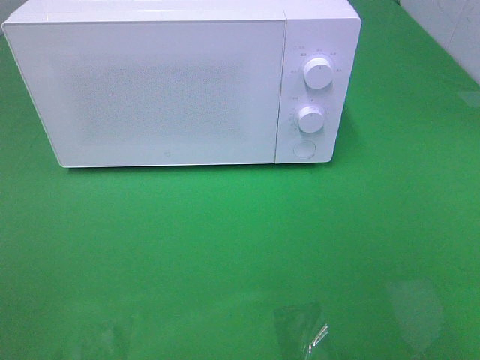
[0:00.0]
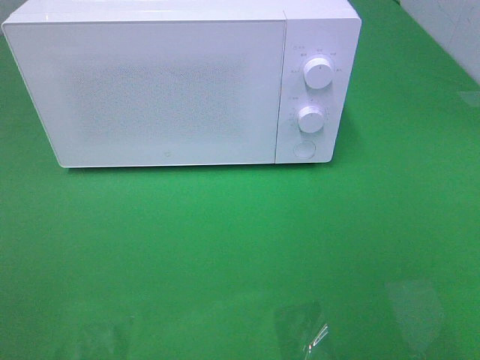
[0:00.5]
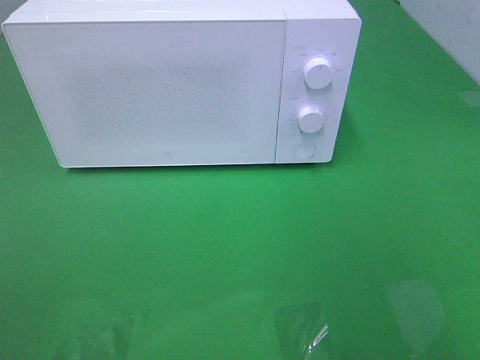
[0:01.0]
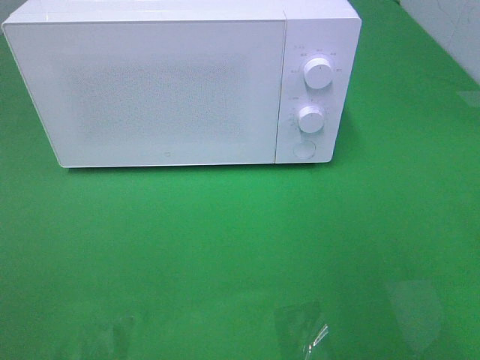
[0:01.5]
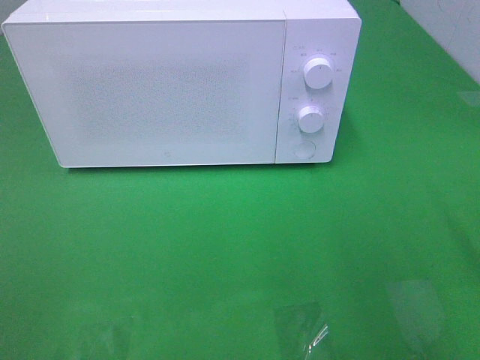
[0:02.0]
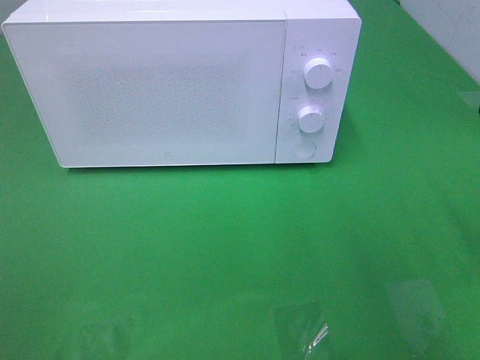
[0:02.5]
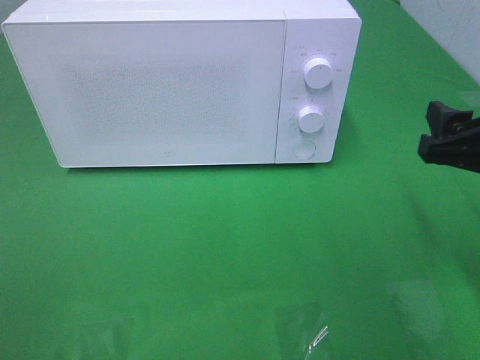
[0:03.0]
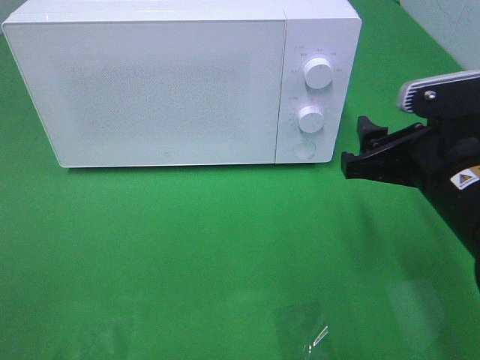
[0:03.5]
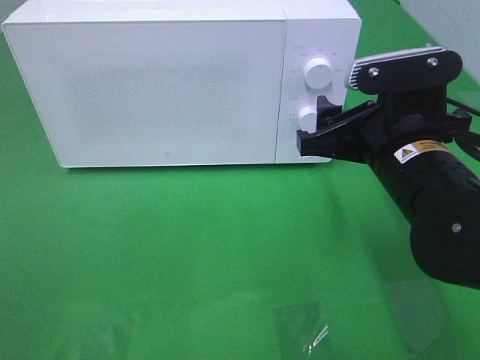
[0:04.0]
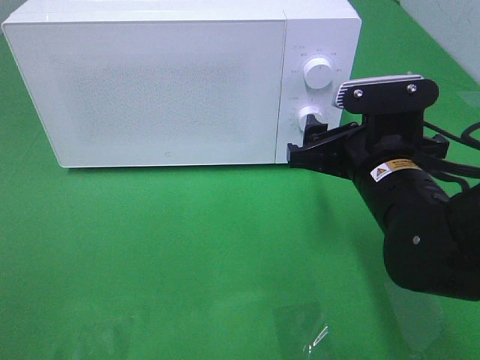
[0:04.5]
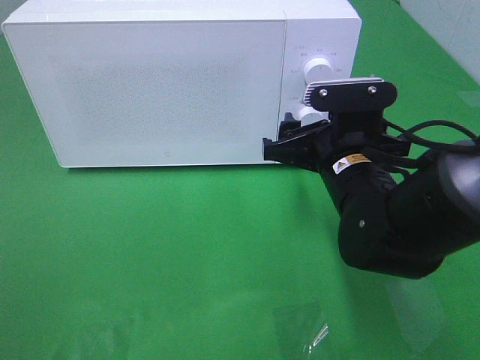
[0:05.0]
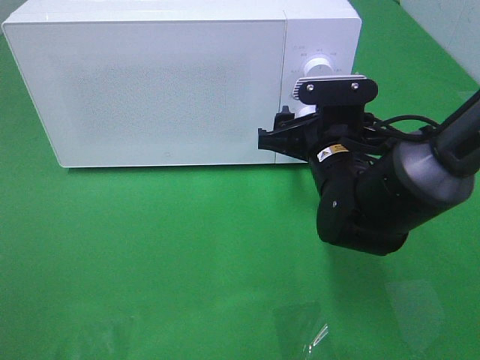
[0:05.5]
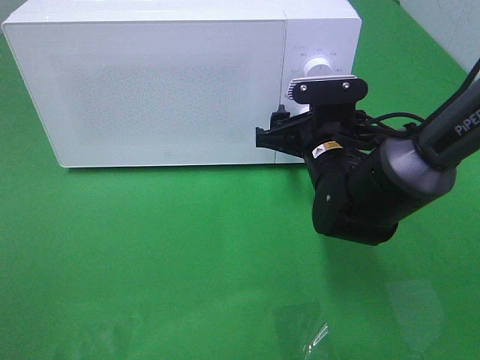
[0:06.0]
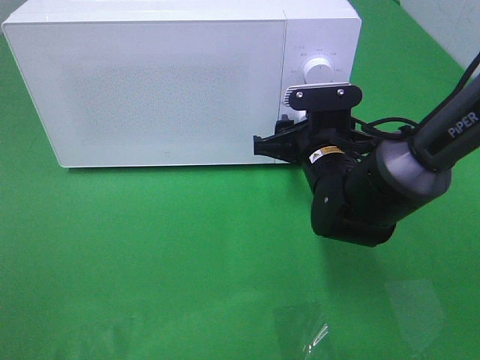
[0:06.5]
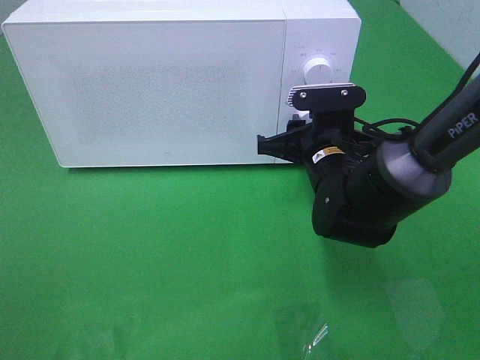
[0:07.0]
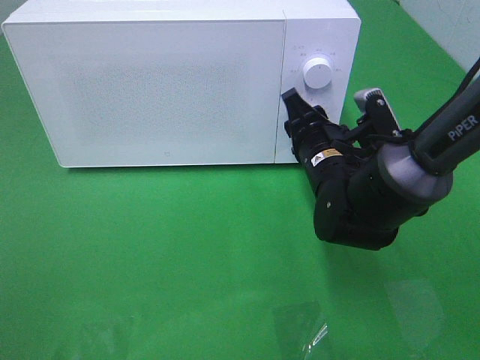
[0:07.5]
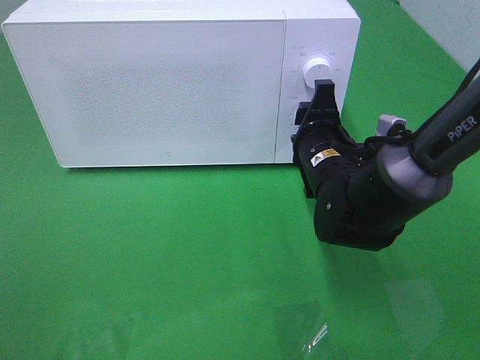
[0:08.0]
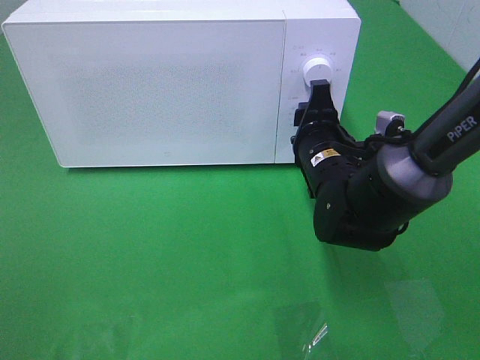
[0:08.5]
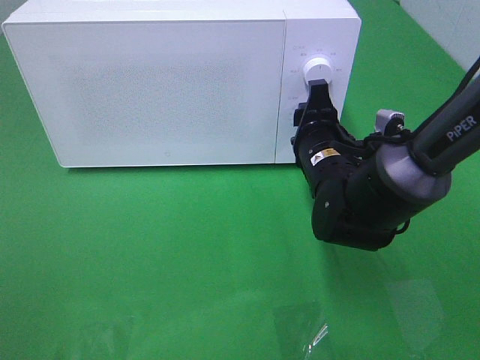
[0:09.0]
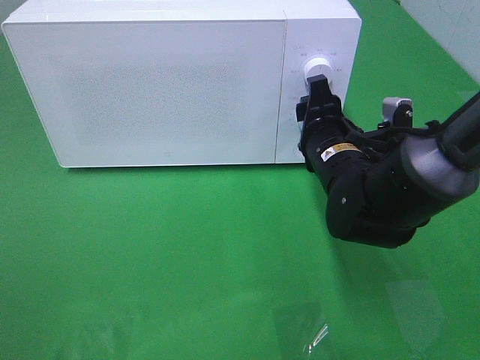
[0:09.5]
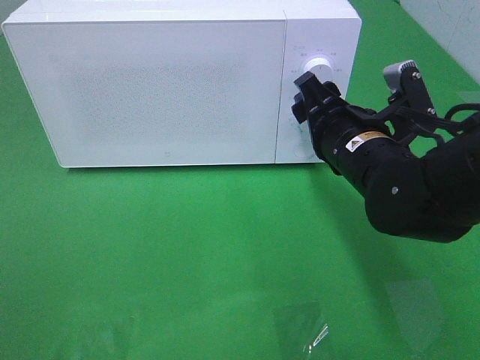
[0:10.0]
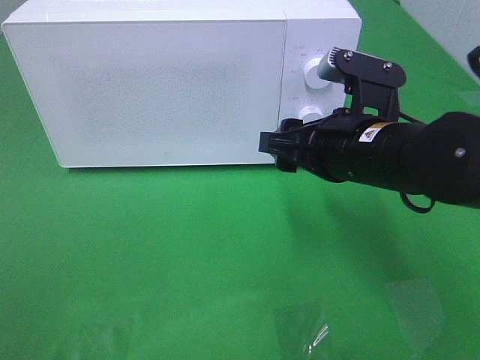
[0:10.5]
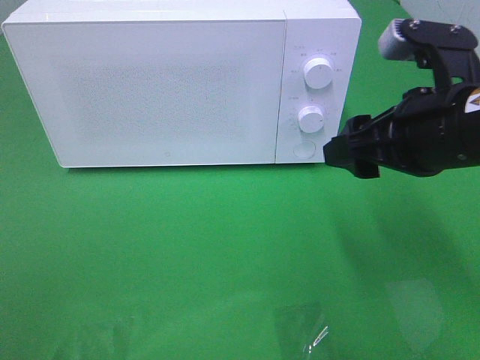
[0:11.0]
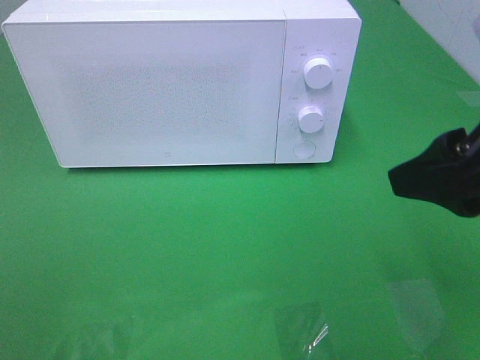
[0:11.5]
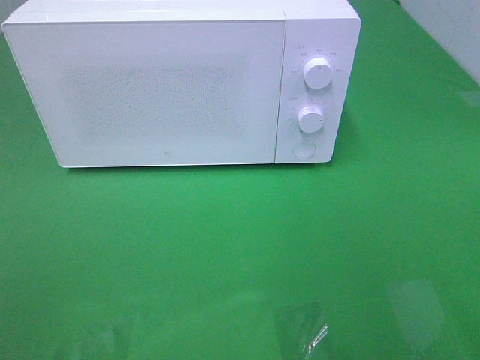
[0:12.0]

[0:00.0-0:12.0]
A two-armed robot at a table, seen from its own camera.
Task of the whole recording: Heat the burger.
Step, 0:00.0 to 0:09.0: Right hand: twist timer button.
0:02.0 to 0:04.0: The right gripper travels to the left, forward and downward by roughly 15 cm.
0:04.0 to 0:06.0: The right gripper heads forward and downward, covering some 10 cm.
0:06.0 to 0:08.0: The right gripper closes its fingers.
0:08.0 to 0:10.0: The right gripper ends up about 5 cm from where it was.
0:10.0 to 0:12.0: The right gripper shifts about 30 cm backward, upward and to the right.

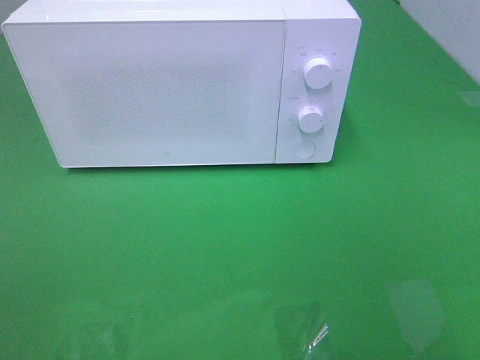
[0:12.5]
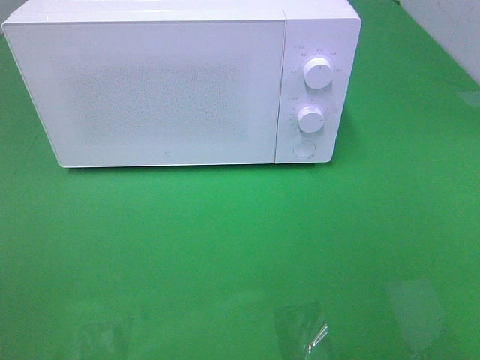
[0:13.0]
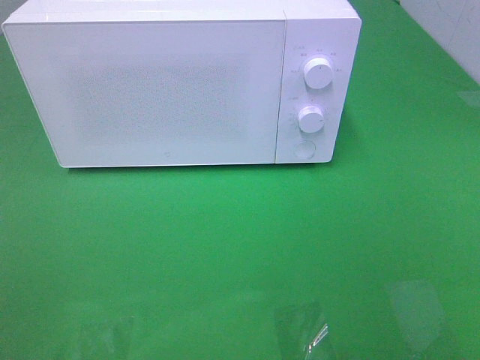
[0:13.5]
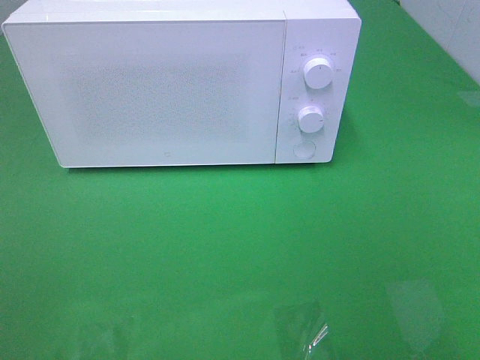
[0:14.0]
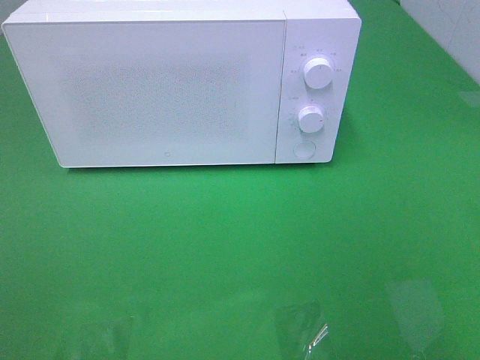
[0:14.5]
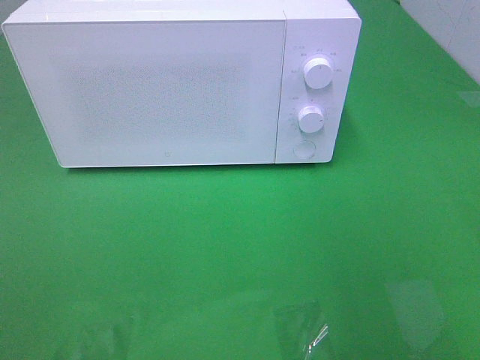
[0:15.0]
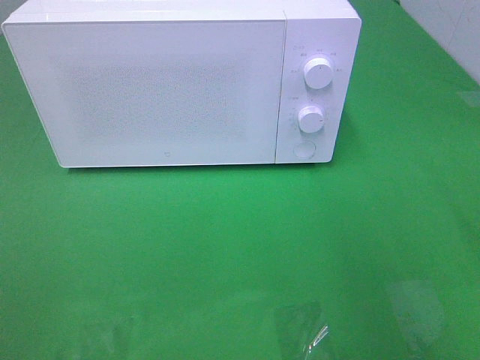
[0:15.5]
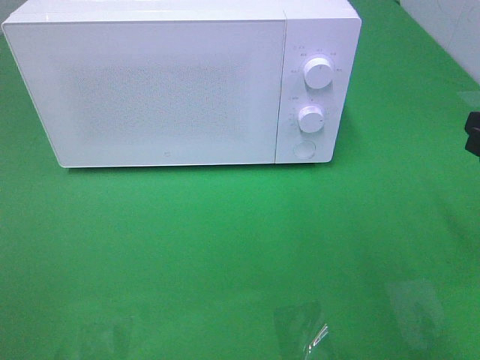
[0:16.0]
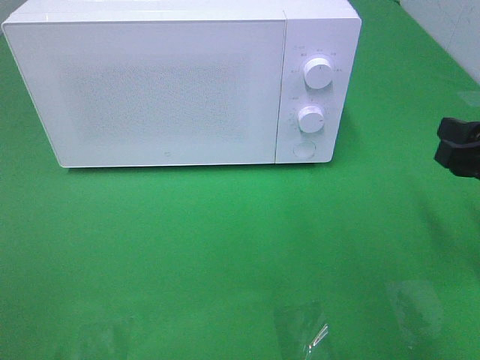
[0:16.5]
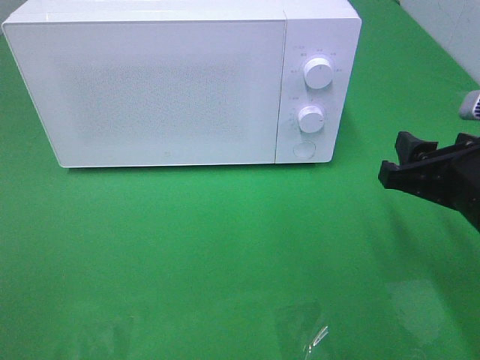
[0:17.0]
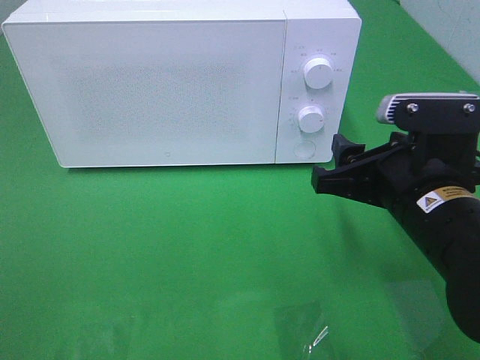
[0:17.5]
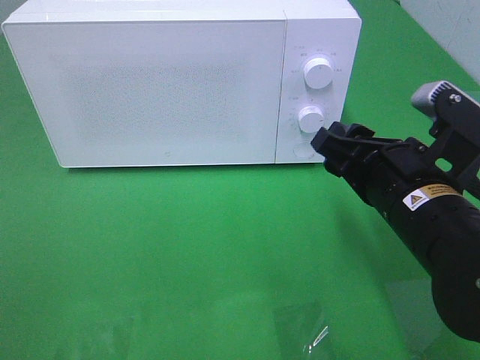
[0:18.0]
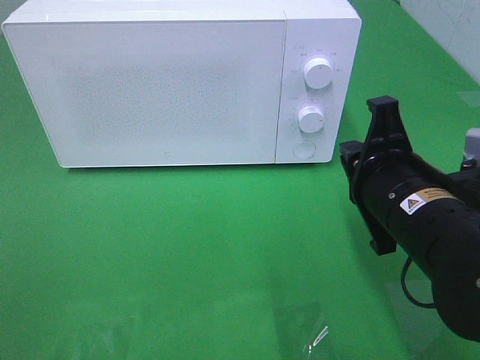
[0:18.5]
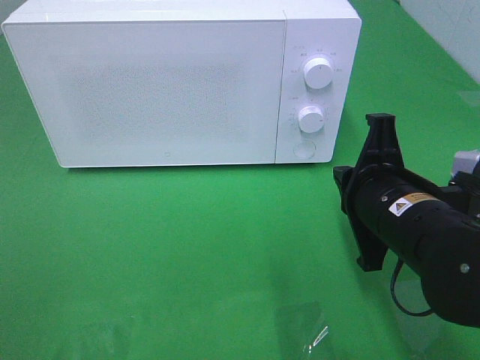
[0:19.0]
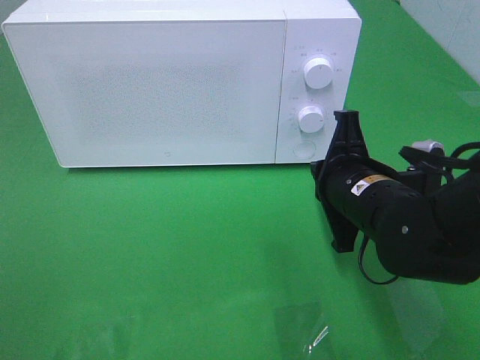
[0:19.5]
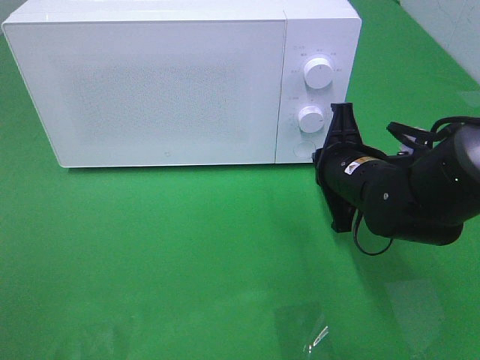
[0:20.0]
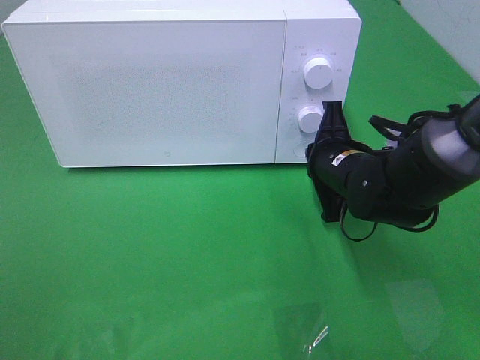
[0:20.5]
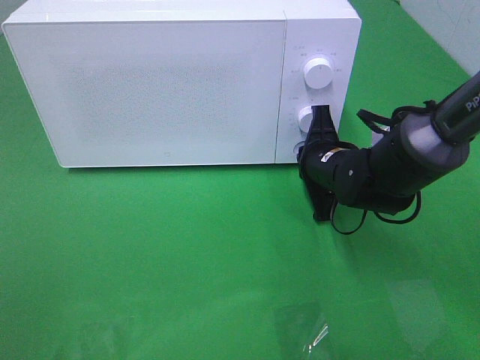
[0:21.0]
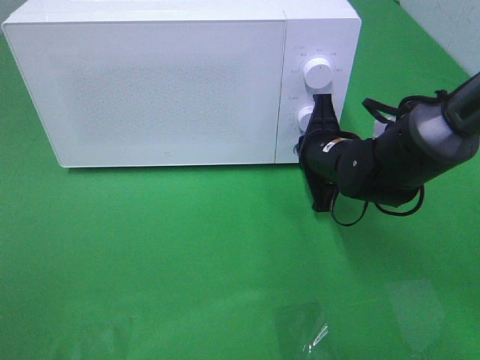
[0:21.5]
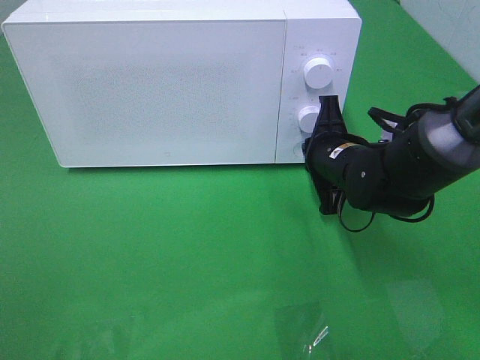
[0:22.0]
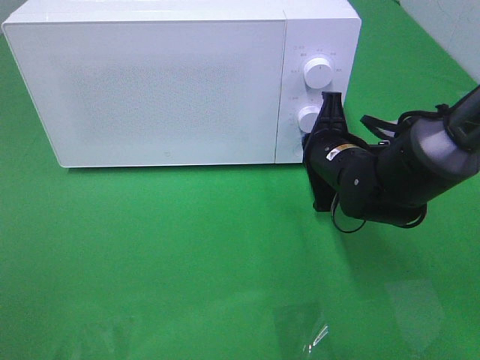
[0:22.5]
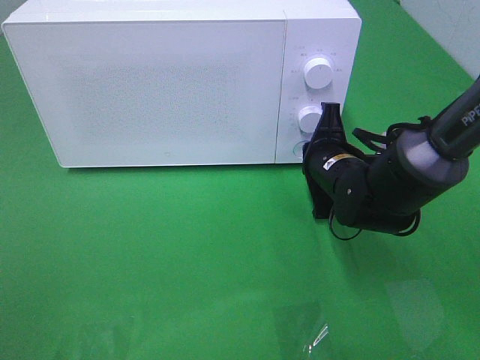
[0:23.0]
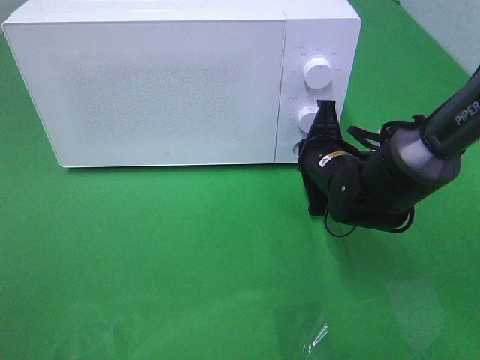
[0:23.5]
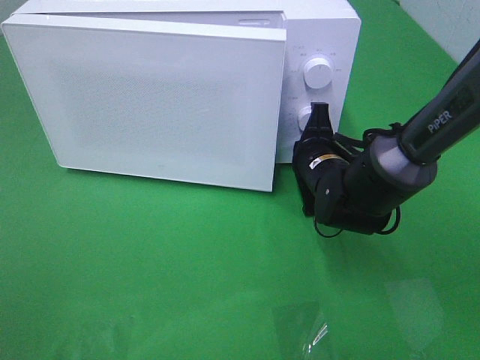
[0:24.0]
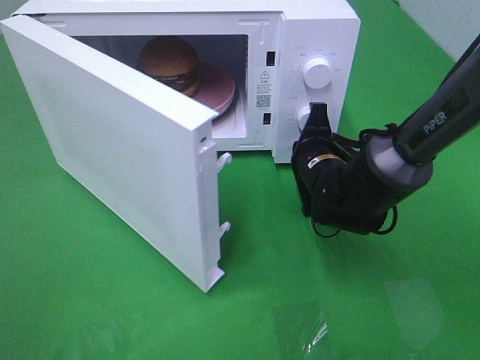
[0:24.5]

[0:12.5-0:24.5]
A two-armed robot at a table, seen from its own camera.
Task of the whole recording: Heat the burger.
0:14.5 to 0:16.5: The right gripper travels forward and downward by some 20 cm.
0:16.5 to 0:18.5: The right gripper travels to the left by approximately 10 cm, and closes its fingers.
0:18.5 to 0:20.5: The right gripper is displaced forward and downward by approximately 15 cm.
0:20.5 to 0:22.5: The grippers stay close to where they were, moving slightly.

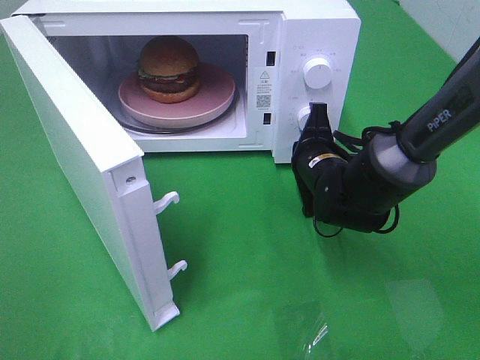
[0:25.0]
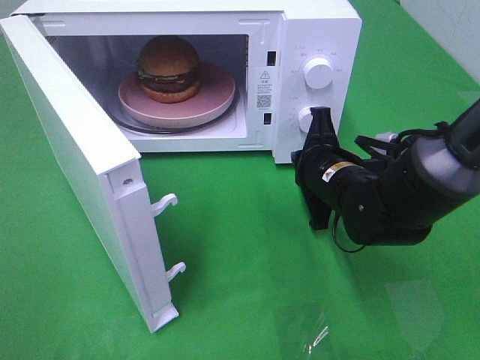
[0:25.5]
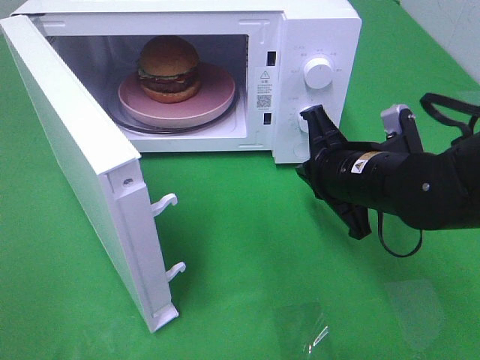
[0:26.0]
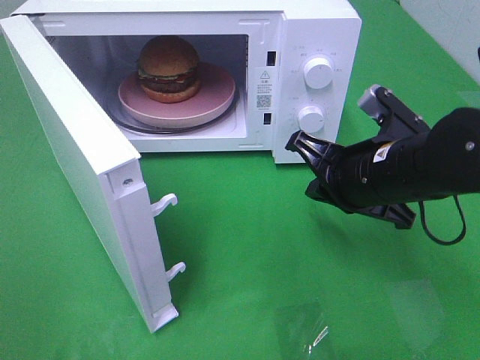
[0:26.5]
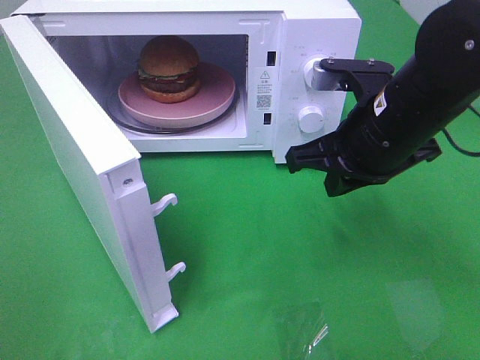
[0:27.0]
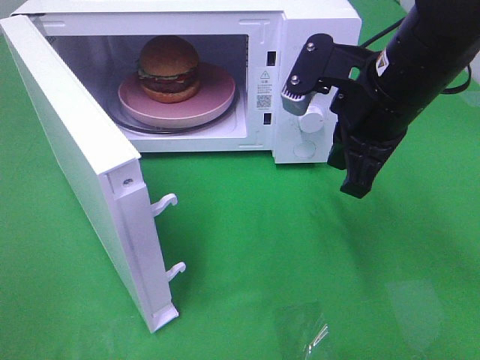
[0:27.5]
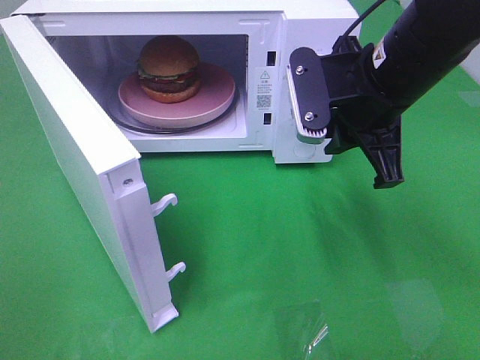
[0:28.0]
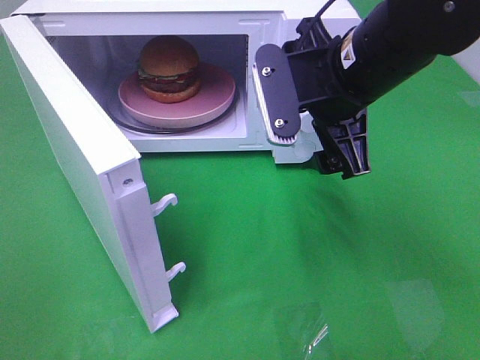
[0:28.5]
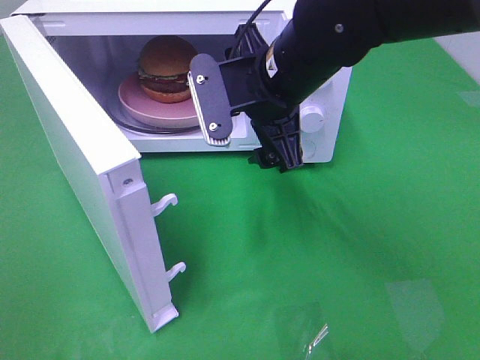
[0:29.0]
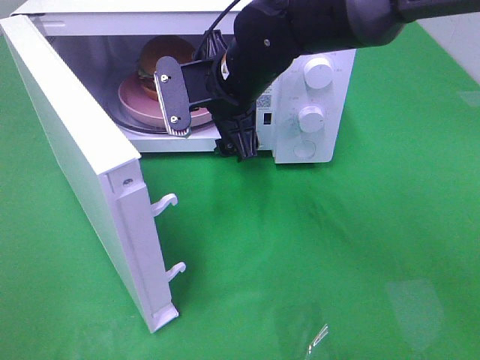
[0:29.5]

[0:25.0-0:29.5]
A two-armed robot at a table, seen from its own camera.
Task of the whole recording: Heat the burger.
0:25.0 to 0:27.0: The right gripper goes approximately 15 cm upward and backward.
0:27.0 to 0:29.5: The right gripper travels to the left and forward by approximately 15 cm, and opens up.
